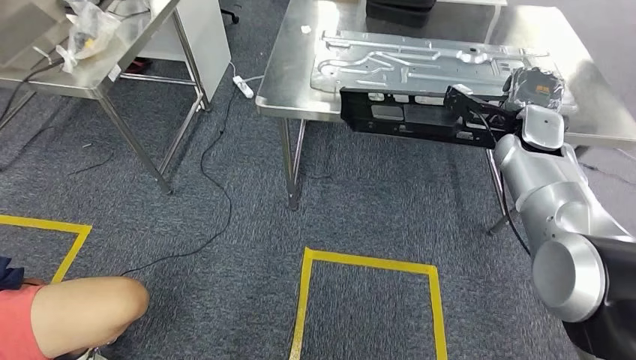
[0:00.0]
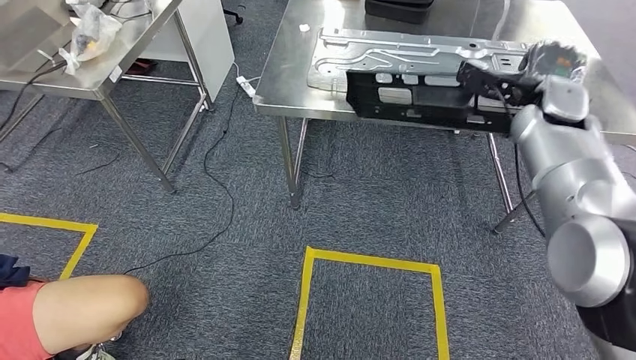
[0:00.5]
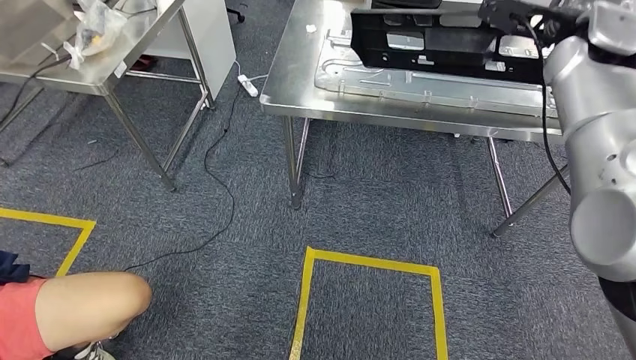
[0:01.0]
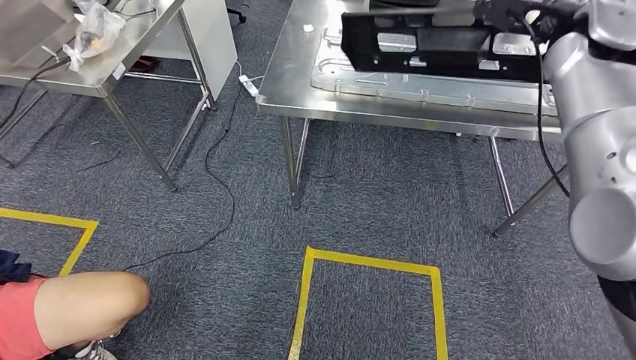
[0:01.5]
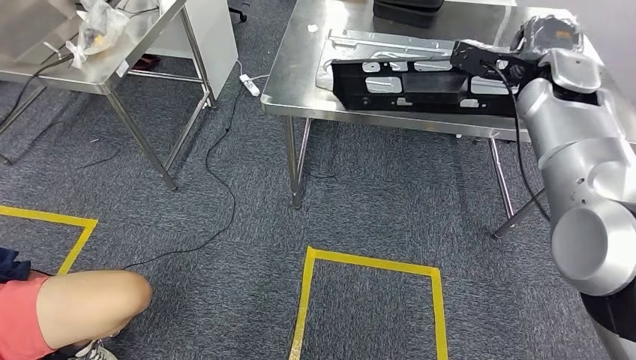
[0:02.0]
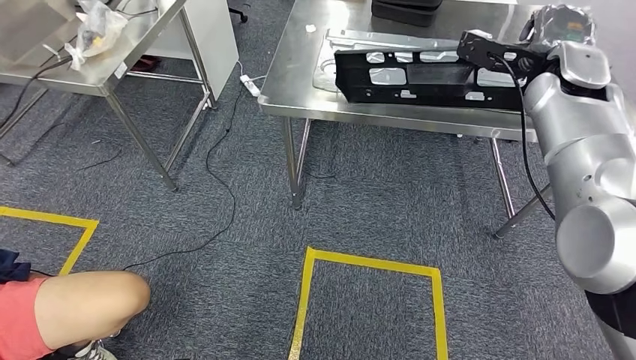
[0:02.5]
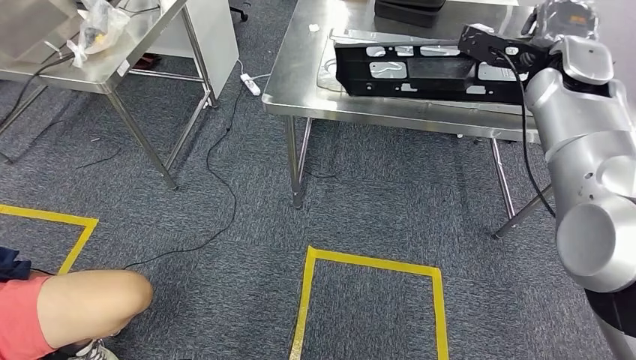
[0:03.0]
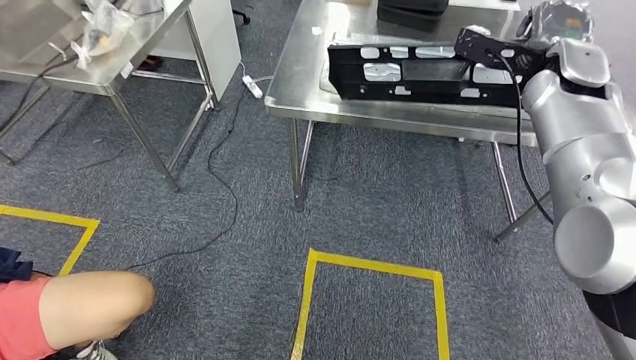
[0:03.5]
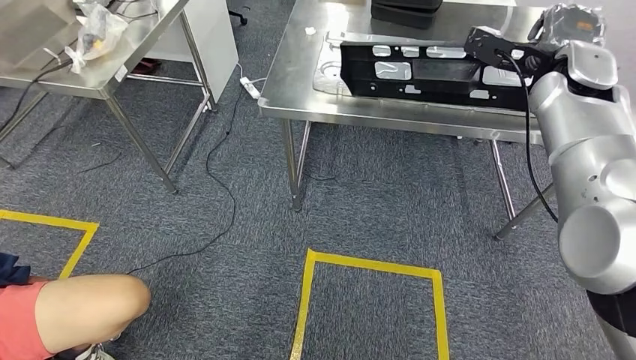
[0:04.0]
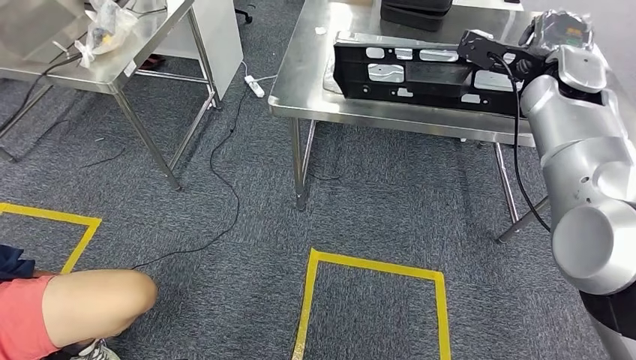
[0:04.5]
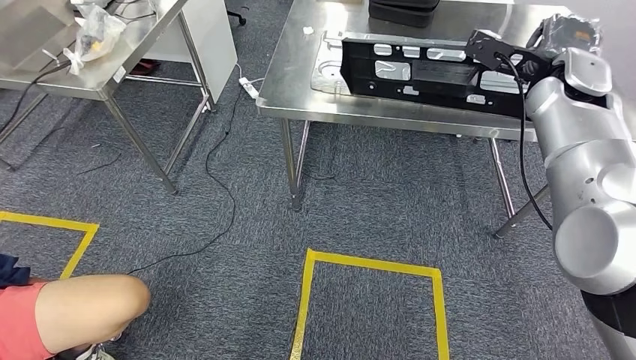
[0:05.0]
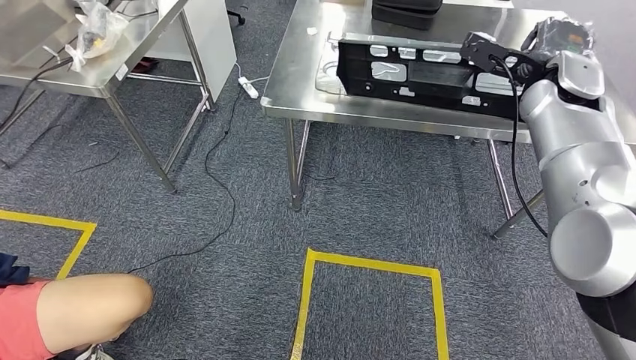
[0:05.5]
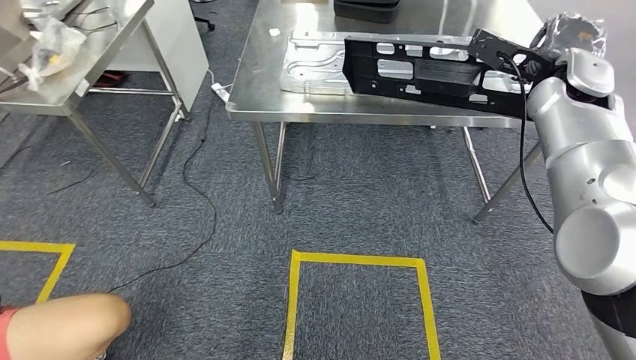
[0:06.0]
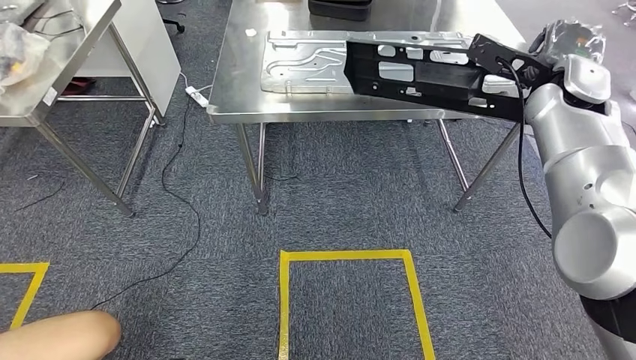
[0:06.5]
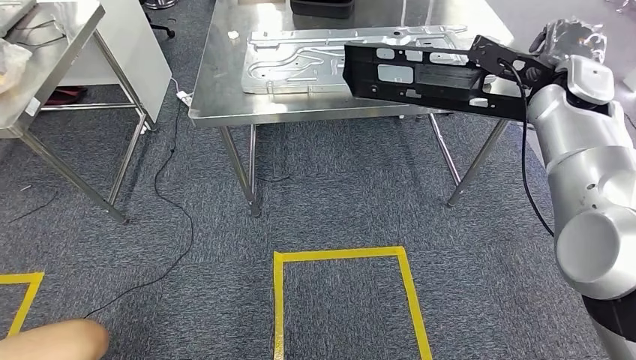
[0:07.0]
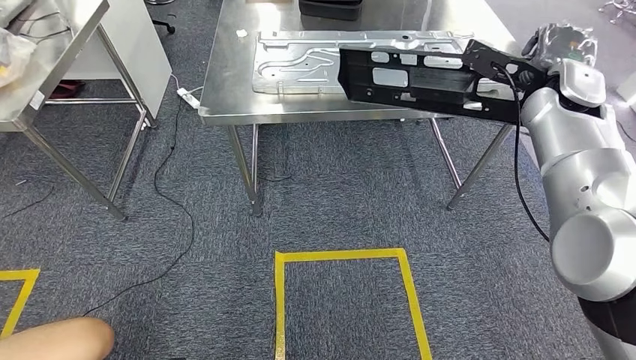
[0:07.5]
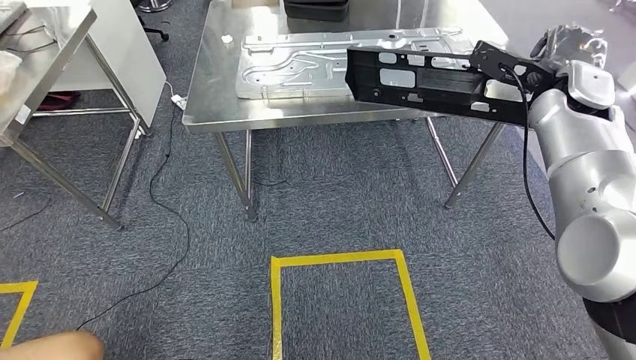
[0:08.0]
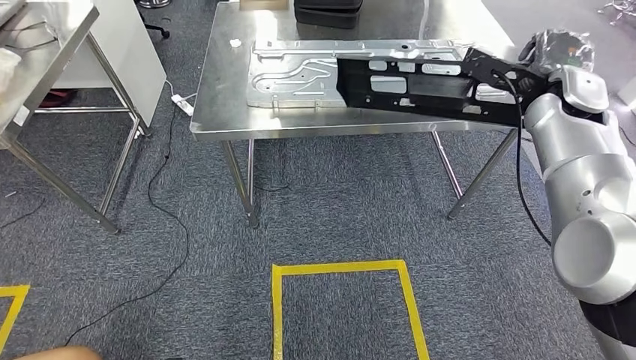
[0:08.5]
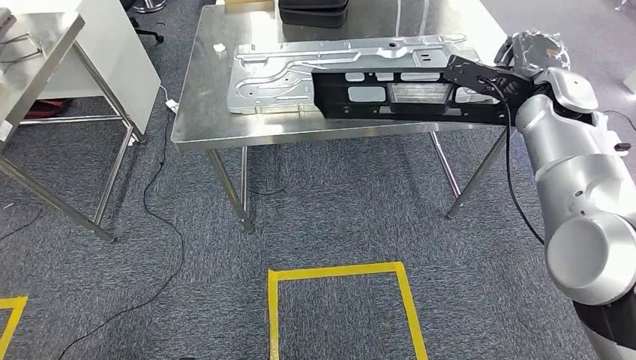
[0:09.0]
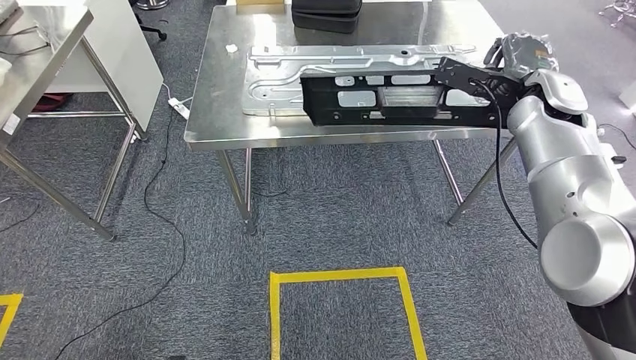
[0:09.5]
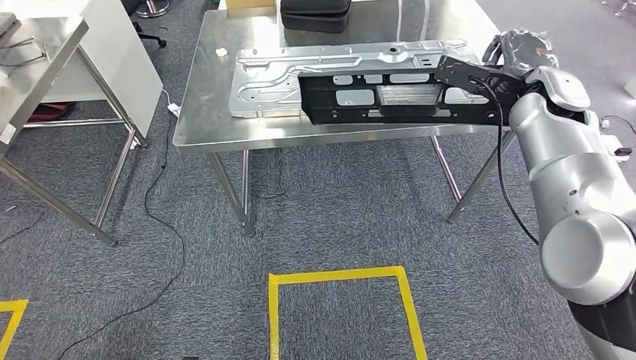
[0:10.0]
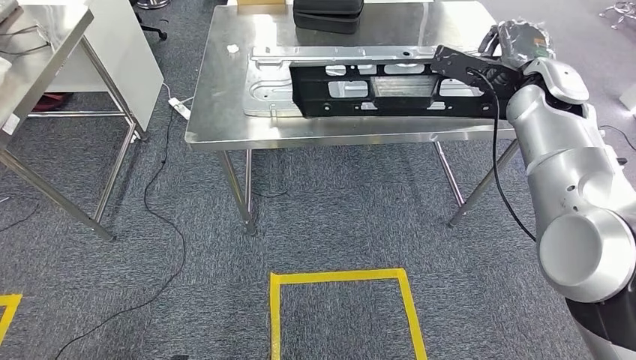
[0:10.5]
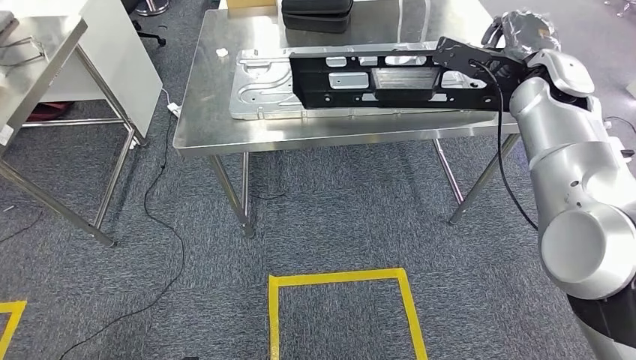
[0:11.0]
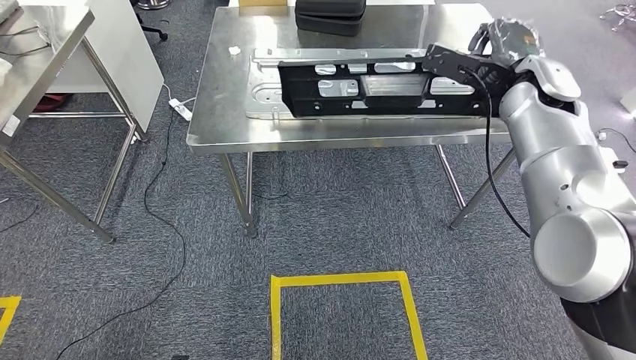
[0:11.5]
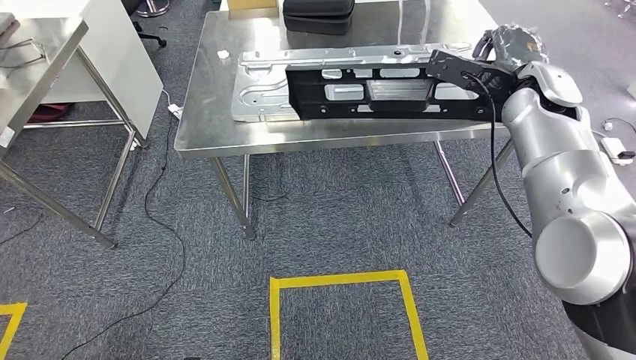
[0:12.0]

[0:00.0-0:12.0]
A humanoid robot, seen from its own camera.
0:10.0 to 0:12.0: The hands make only small movements.

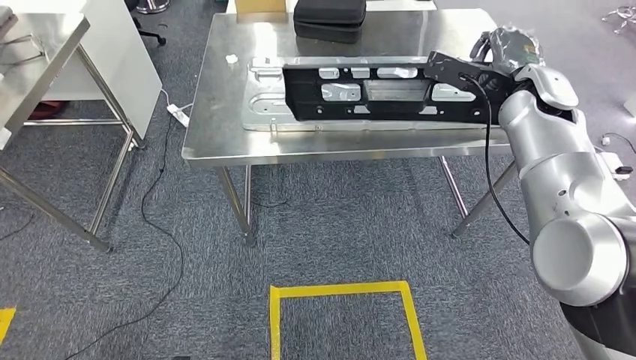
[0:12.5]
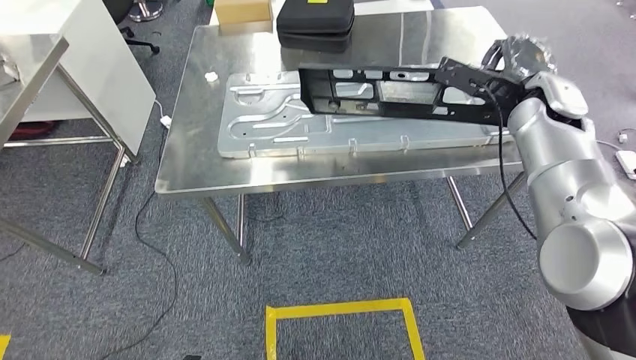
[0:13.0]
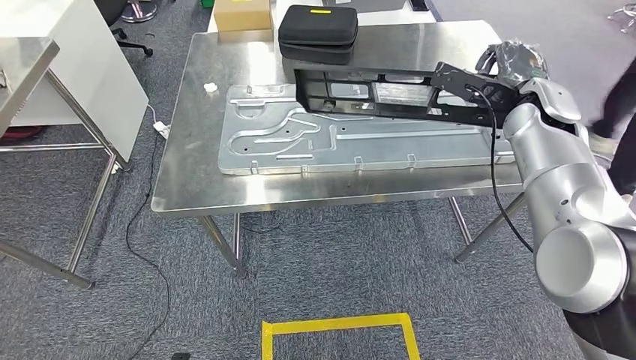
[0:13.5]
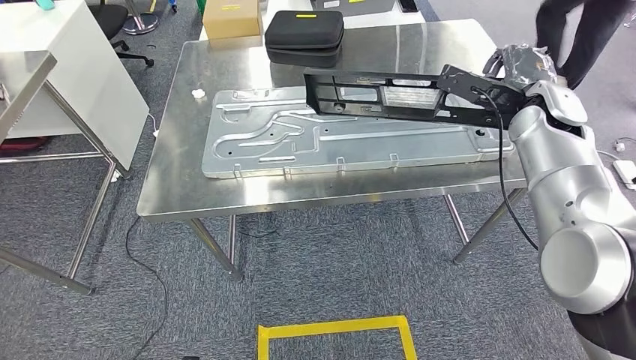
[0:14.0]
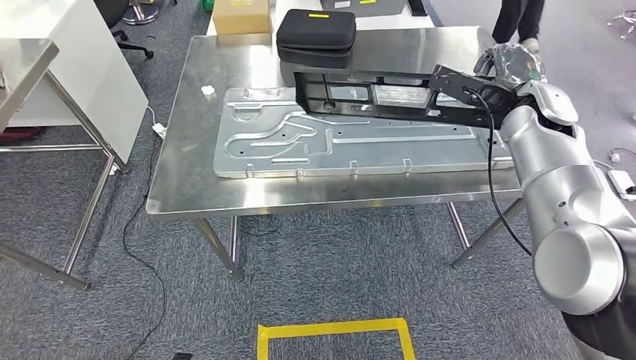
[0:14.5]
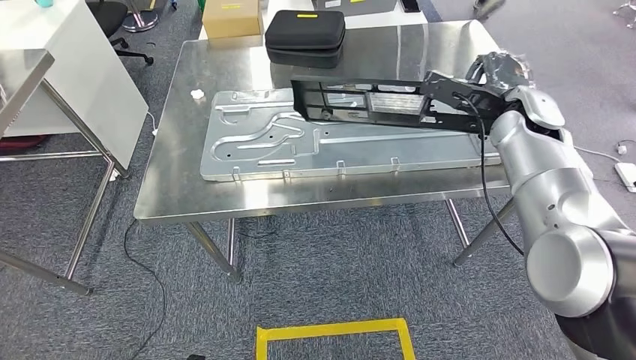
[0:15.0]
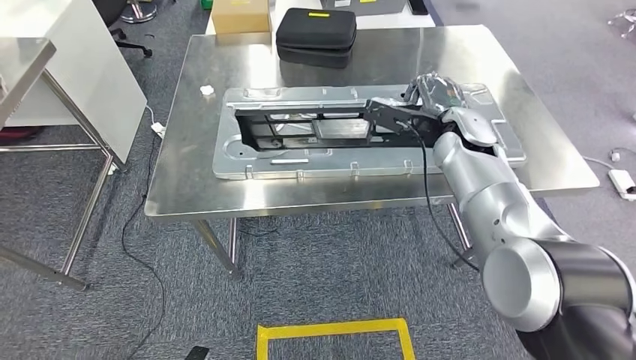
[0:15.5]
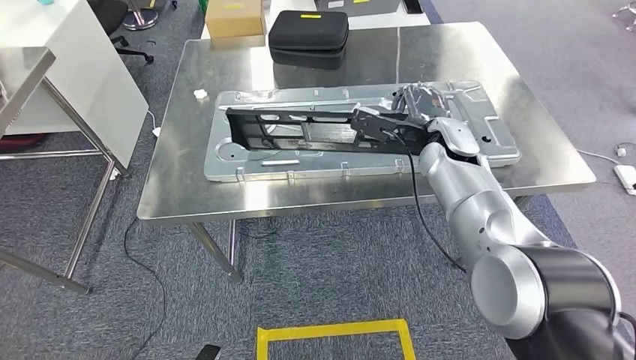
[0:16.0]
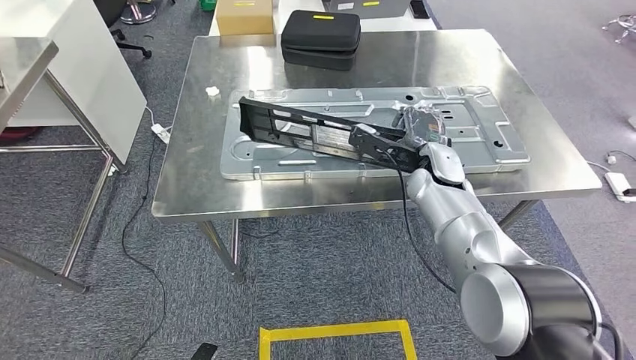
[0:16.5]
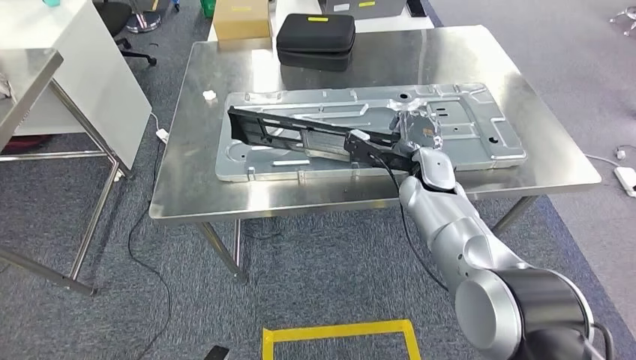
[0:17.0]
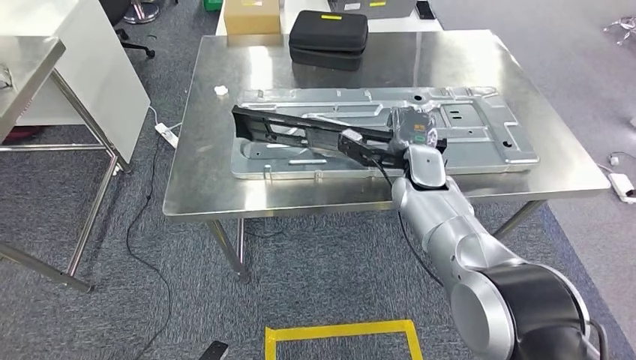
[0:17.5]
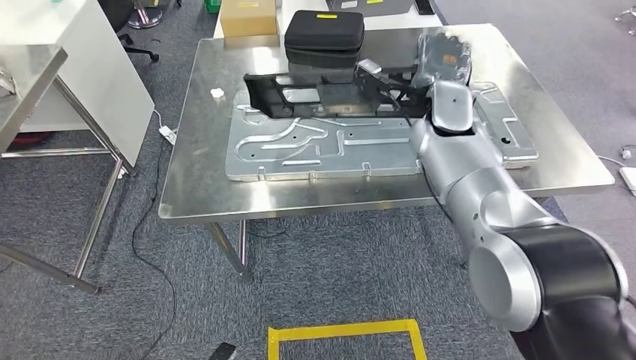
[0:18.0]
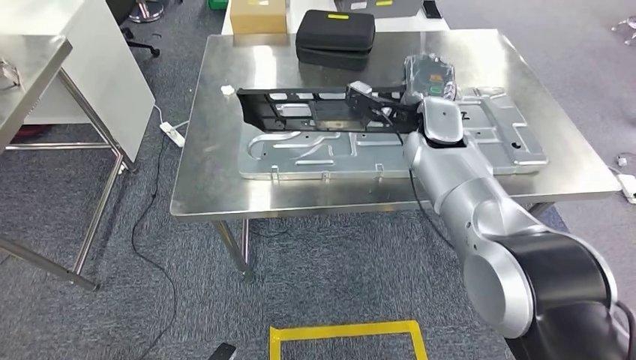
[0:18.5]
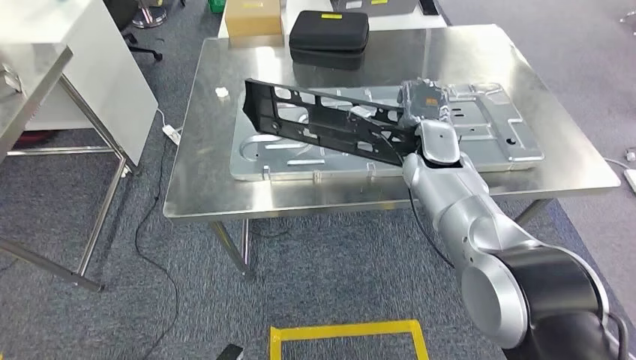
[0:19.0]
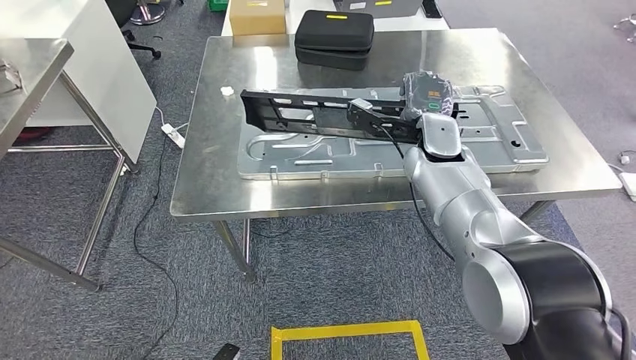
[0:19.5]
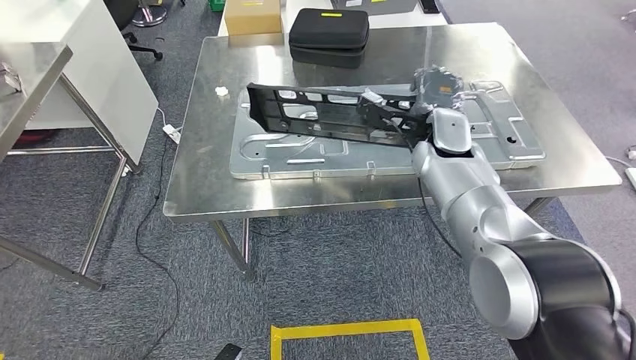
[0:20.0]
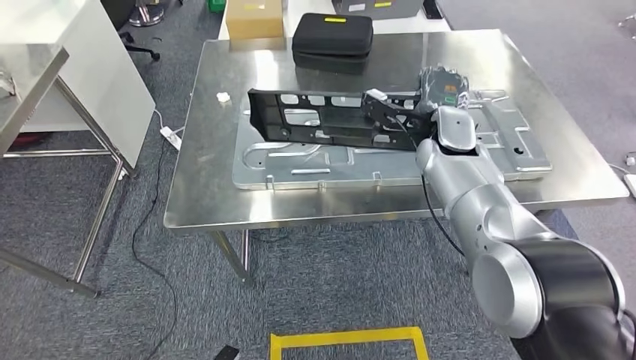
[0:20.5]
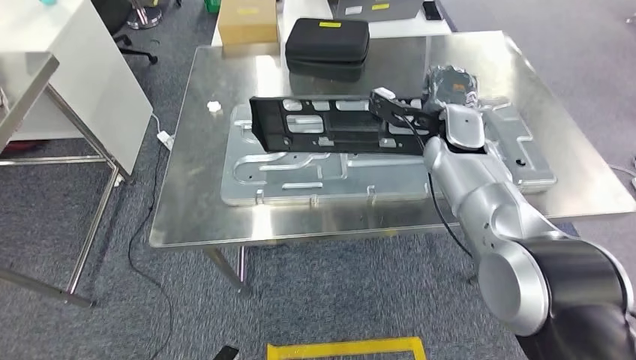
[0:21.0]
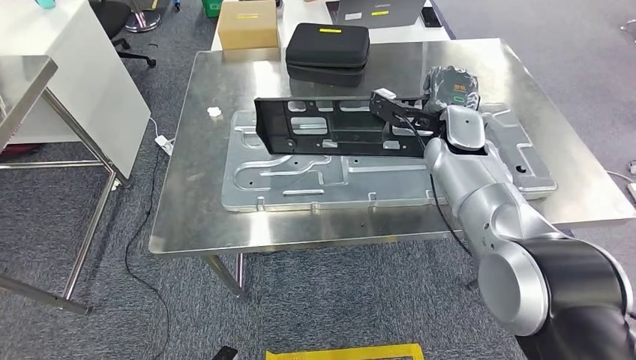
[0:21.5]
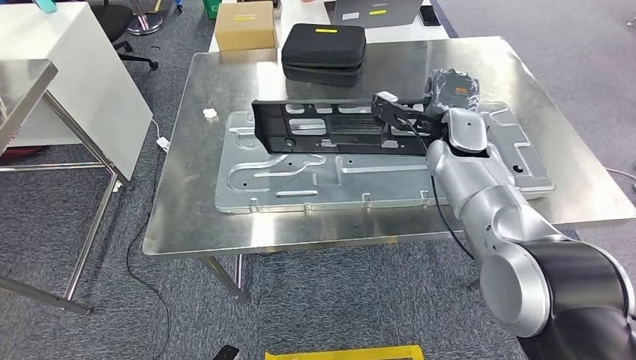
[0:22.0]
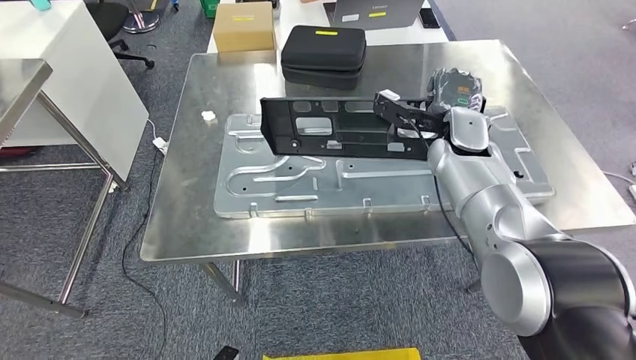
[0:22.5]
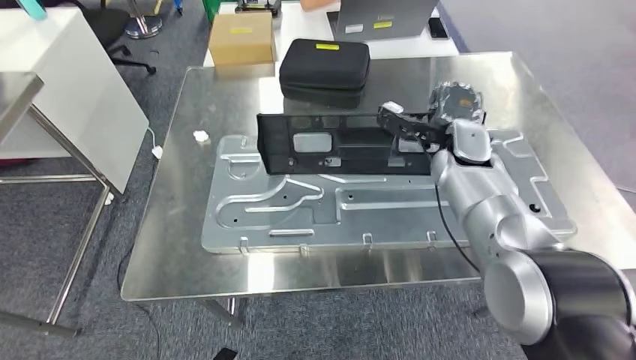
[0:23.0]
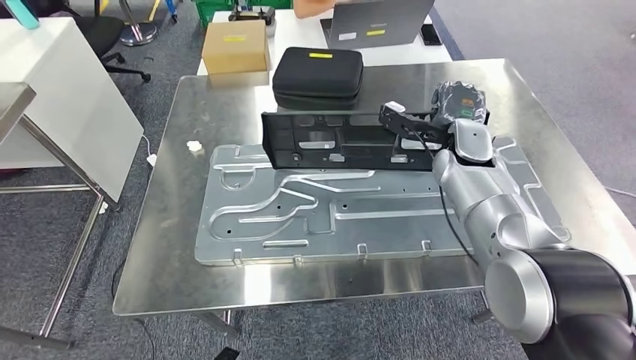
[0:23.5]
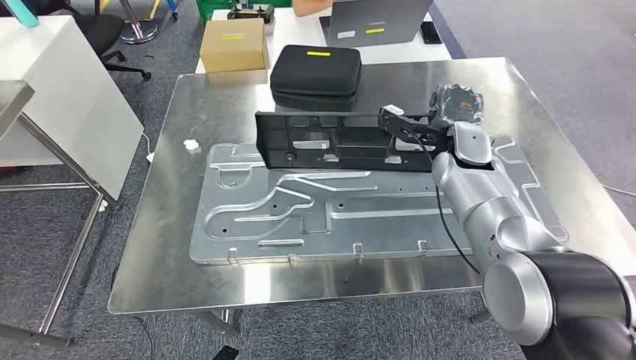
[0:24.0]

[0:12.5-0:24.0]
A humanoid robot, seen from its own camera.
0:18.5 to 0:20.0: The hands stay close to where they were, moving slightly.
